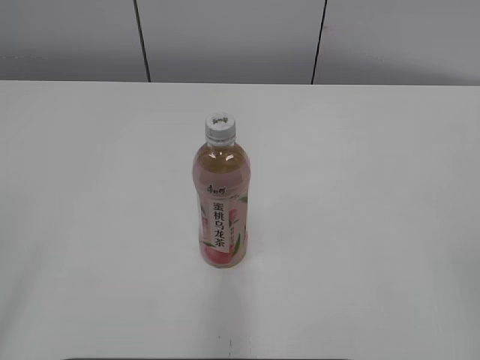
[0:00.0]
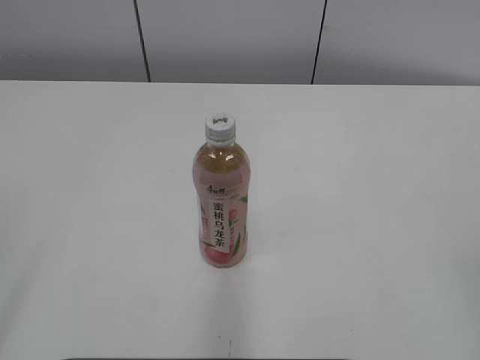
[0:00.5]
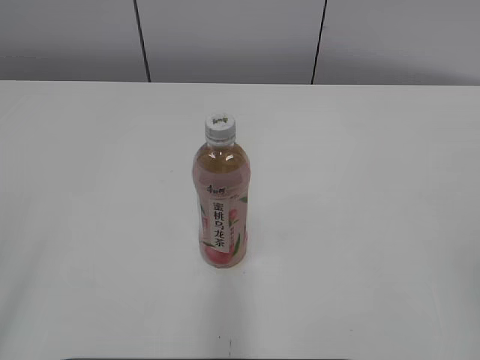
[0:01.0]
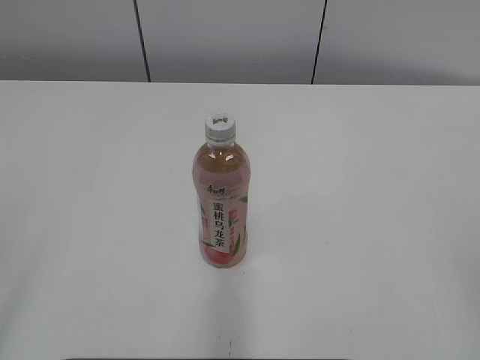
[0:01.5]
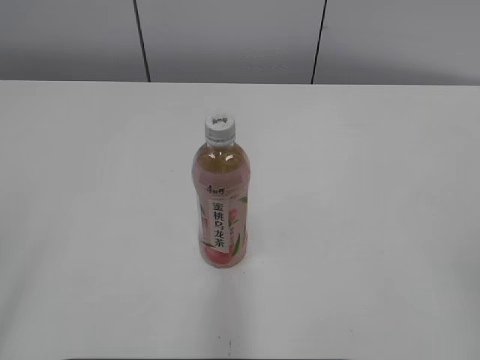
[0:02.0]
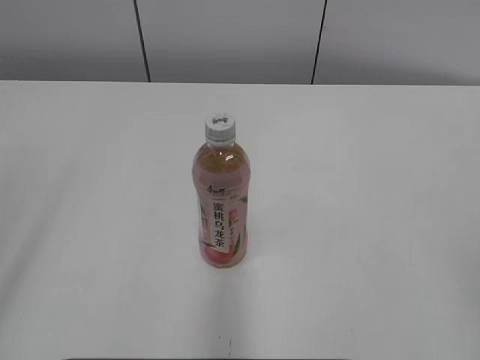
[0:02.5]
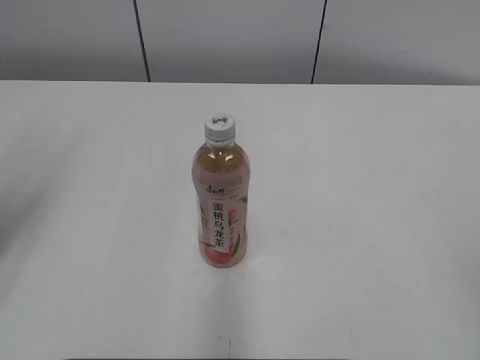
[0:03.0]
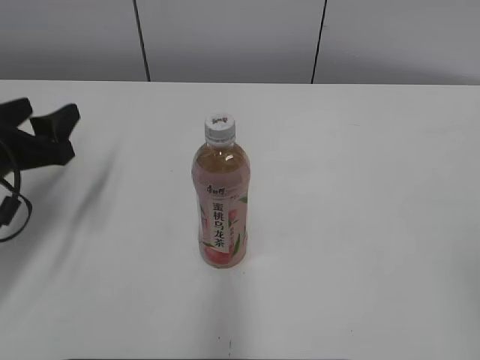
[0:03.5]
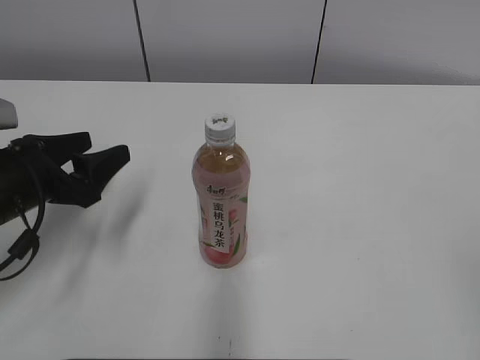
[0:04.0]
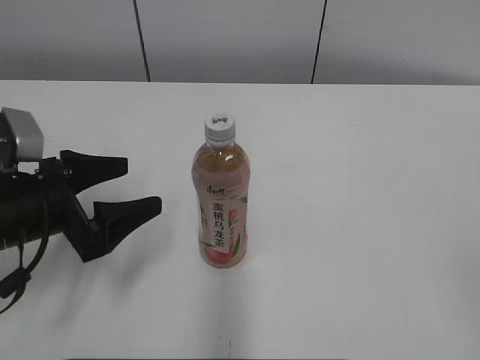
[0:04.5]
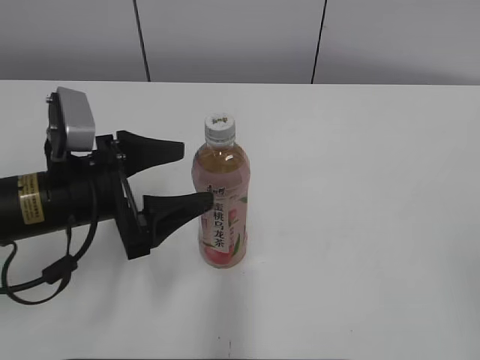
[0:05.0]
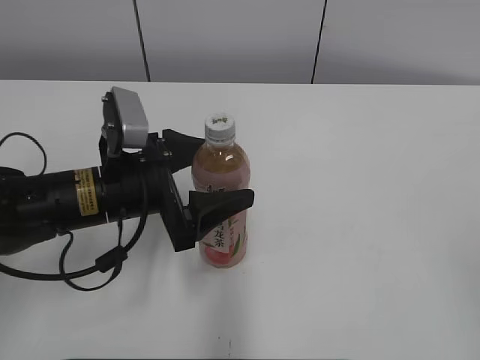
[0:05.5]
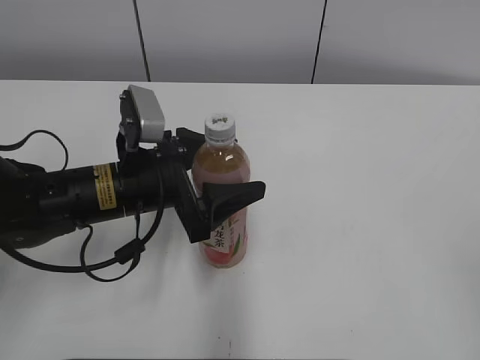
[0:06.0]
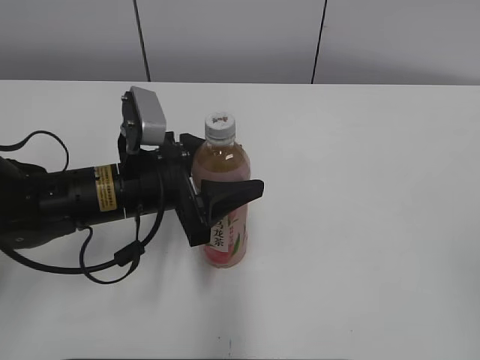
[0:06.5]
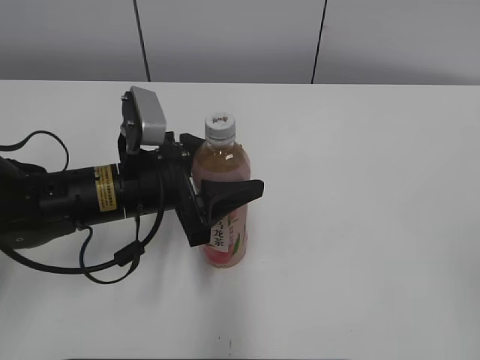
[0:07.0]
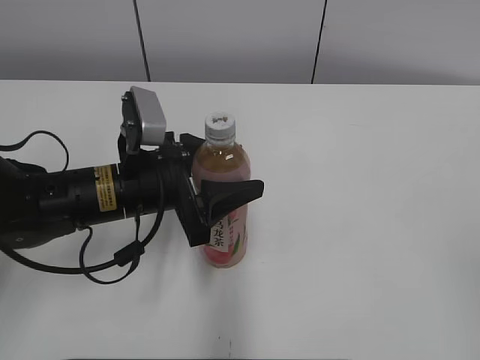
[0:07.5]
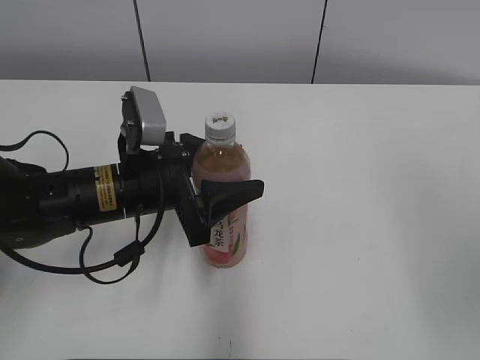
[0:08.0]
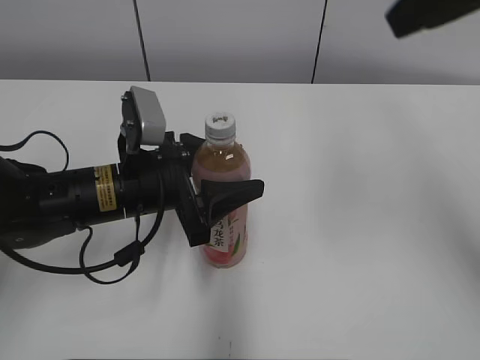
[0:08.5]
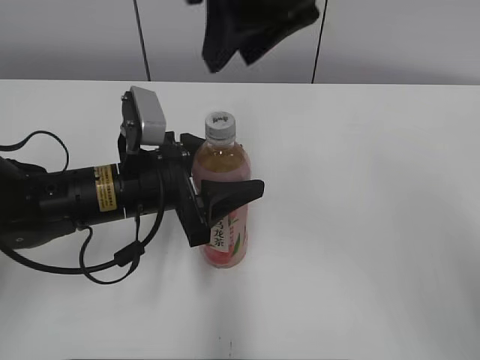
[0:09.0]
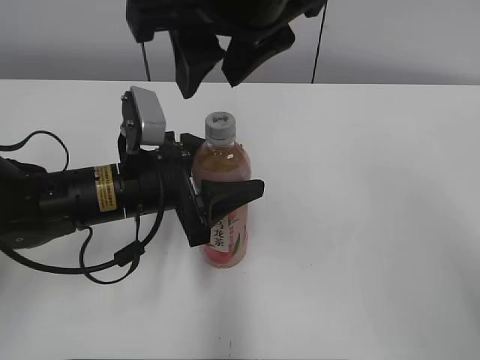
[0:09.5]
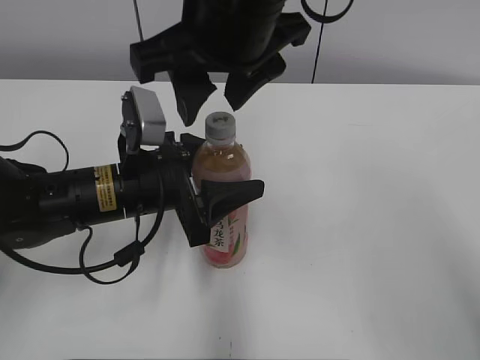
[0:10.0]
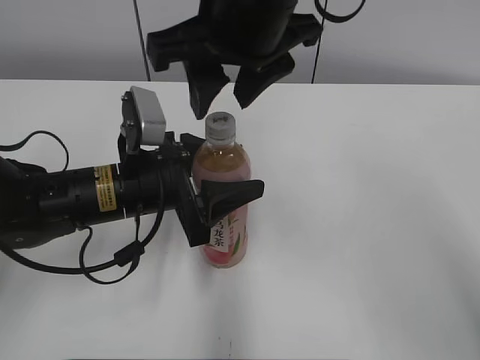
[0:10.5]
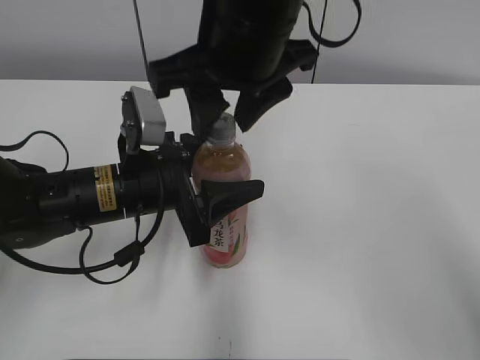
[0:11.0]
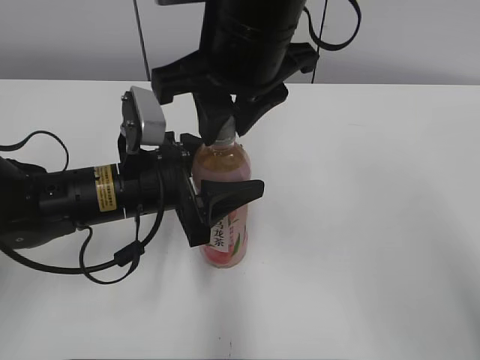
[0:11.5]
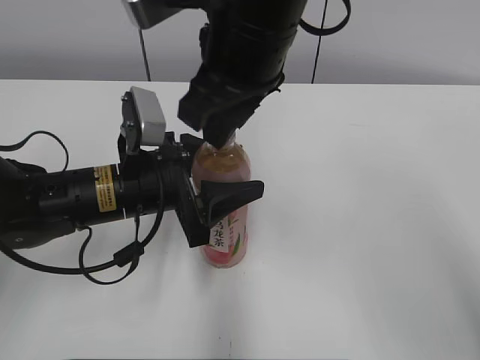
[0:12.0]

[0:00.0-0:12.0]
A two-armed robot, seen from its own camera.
Step, 0:00.0 to 0:06.0: Grasp the bottle and move it to the center of the table with the left gripper.
0:02.0 to 0:04.0: The left gripper moves forward and downward, roughly 30 cm.
0:04.0 to 0:06.0: The left gripper goes about 15 cm to the right, and opens up.
0:06.0 to 0:08.0: The left gripper closes up, while the right gripper heads forward and upward, covering some 10 cm.
0:08.0 to 0:10.0: The right gripper shifts some 35 cm to the left and forward.
0:10.0 to 0:12.0: The right gripper closes up.

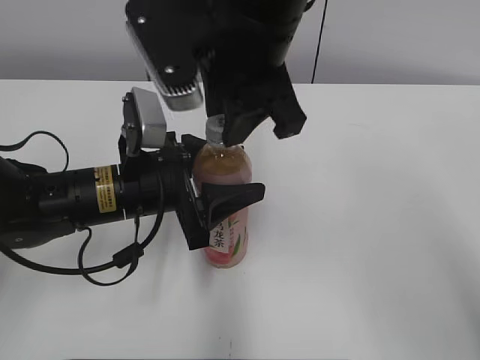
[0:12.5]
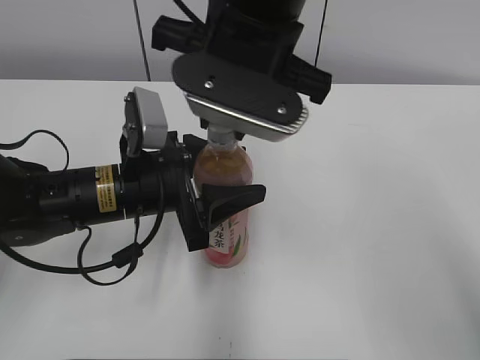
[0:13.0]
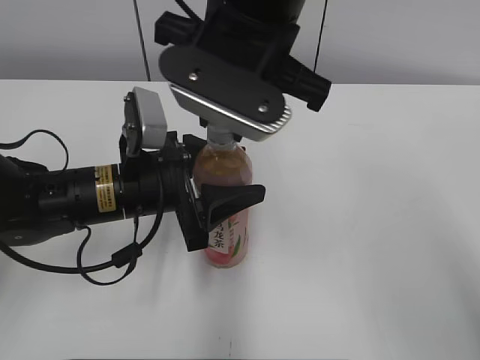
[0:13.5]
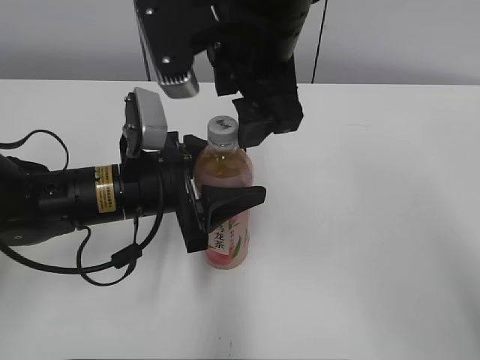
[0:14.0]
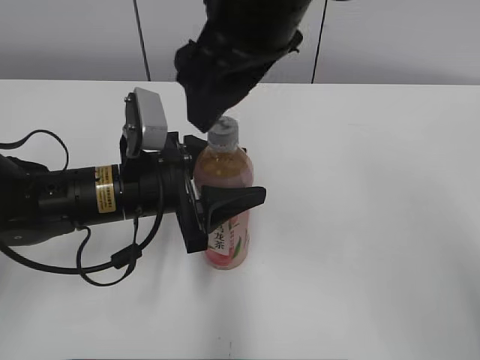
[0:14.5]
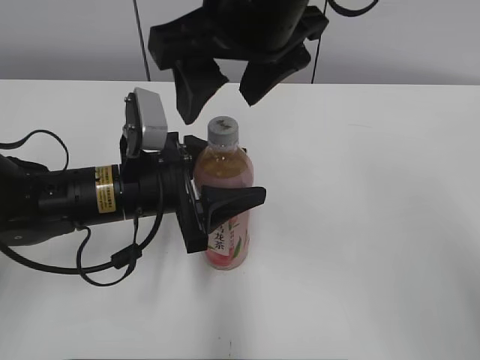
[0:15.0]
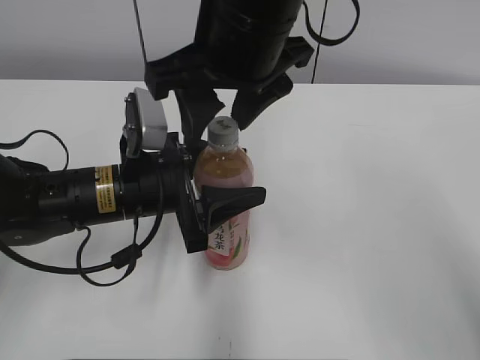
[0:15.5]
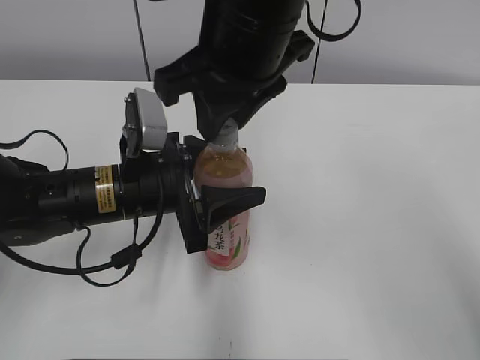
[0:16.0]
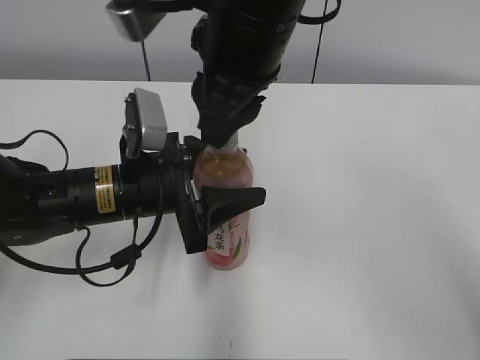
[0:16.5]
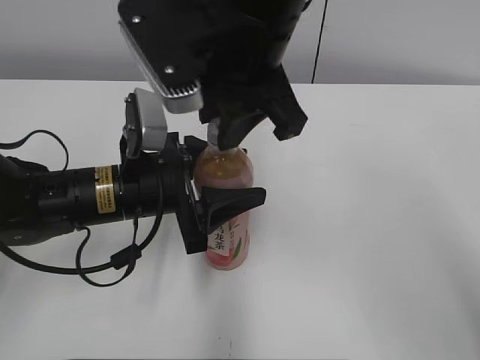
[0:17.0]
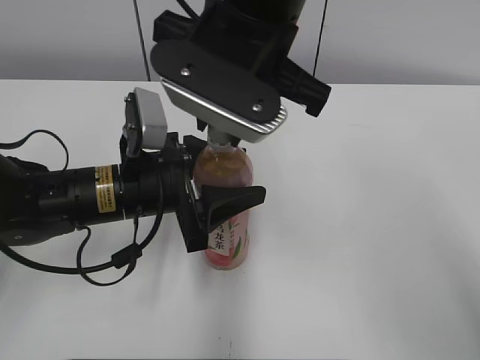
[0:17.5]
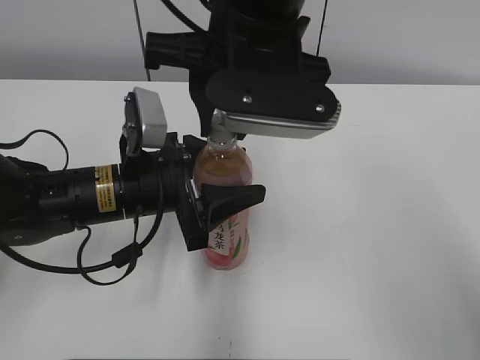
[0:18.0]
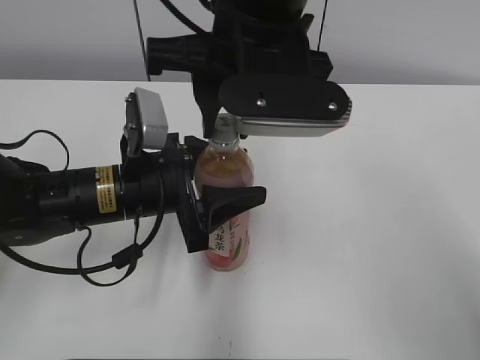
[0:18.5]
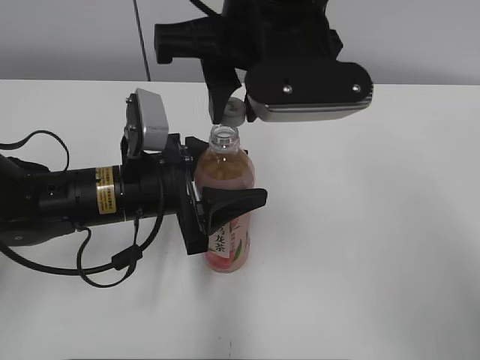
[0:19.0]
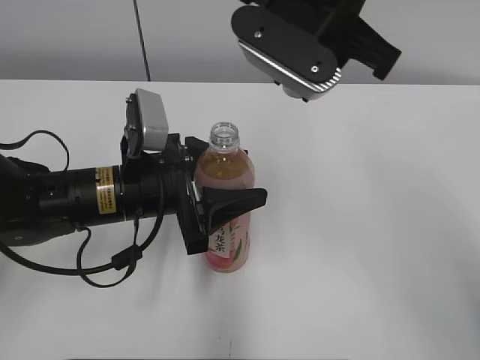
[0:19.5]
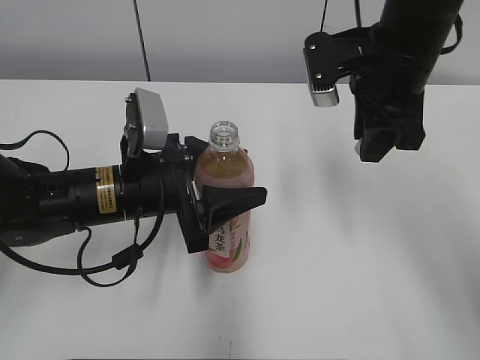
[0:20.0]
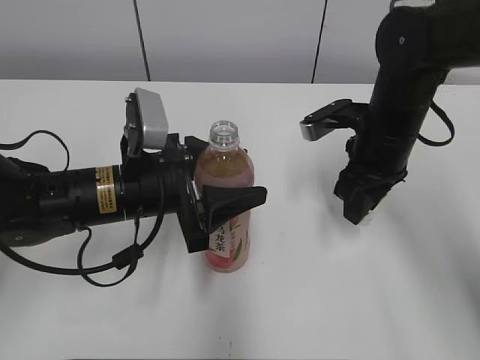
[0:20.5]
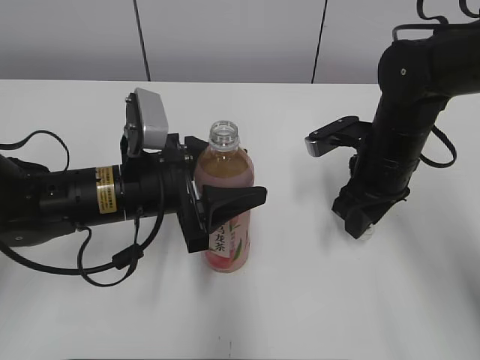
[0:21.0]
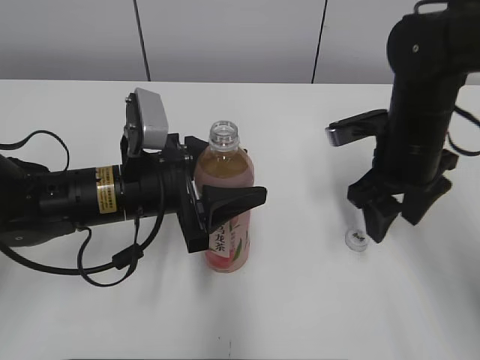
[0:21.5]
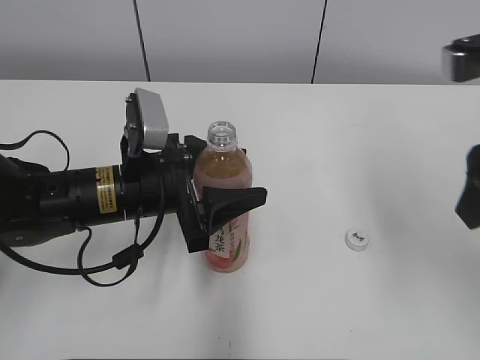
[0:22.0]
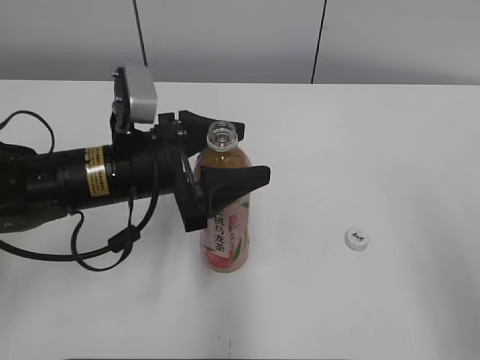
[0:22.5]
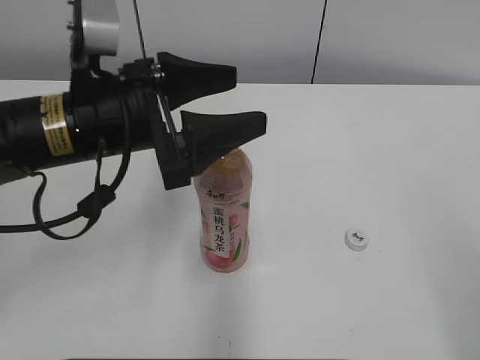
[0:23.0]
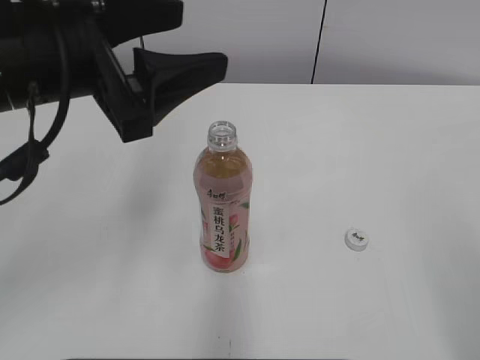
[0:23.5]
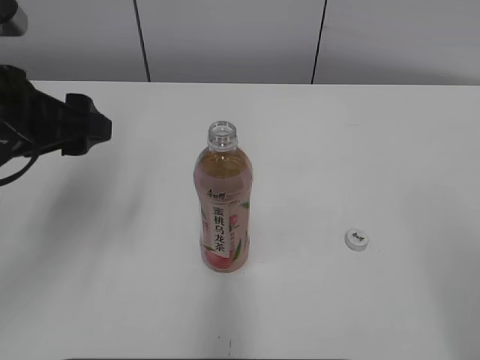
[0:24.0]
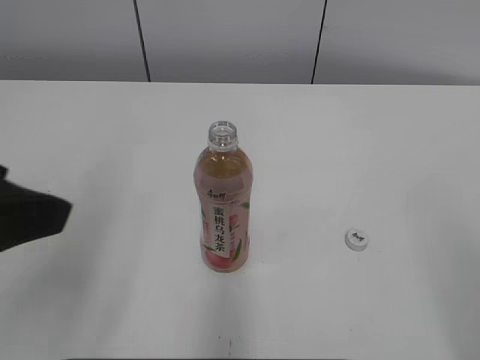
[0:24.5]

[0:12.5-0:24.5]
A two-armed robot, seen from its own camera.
Step, 0:12.5 to 0:18.5: Unscrew the bottle cap with the right gripper while holding the bottle with the left gripper.
Step, 0:19.0 to 0:21.0: Place the bottle cap on the table with the right gripper.
0:12.5 to 0:14.5: The right gripper opens its fingers.
0:14.5 to 0:16.5: The right gripper closes up.
0:18.5 to 0:20.5: The right gripper moves to the right, downward and forward, roughly 20 cm.
0:20.5 to 0:22.5: The right gripper is displaced backward and upward by roughly 30 cm, and opens up, while the left gripper opens its fingers.
0:22.5 to 0:24.5: The right gripper moves backward, about 5 cm, while the left gripper shifts approximately 20 cm upward, backward and to the left.

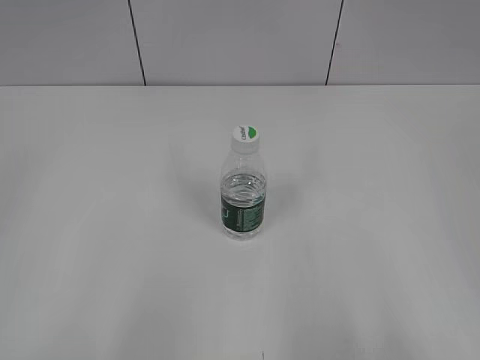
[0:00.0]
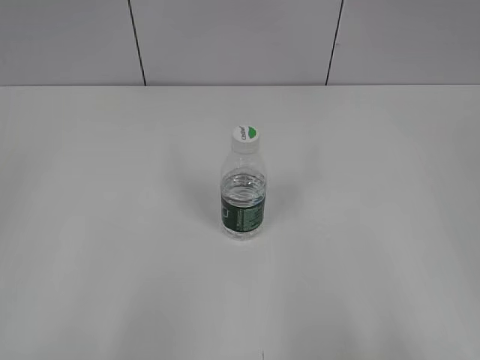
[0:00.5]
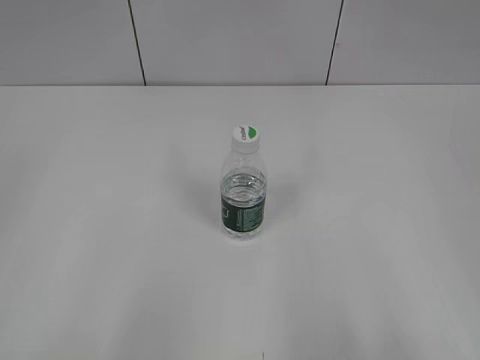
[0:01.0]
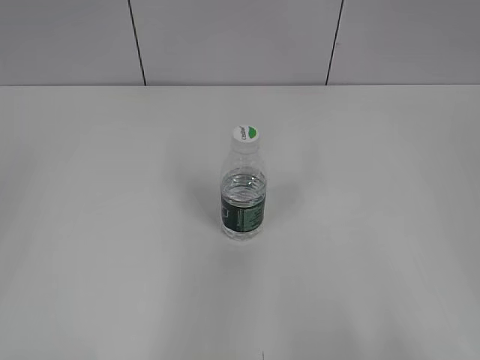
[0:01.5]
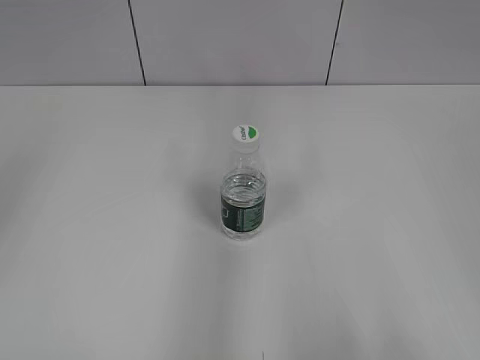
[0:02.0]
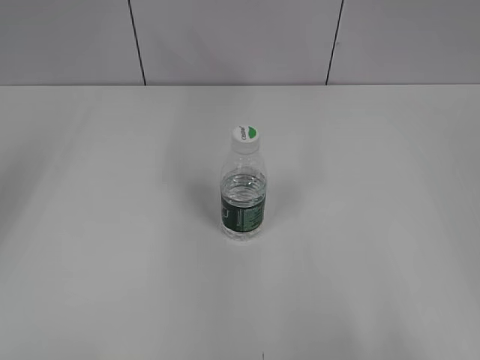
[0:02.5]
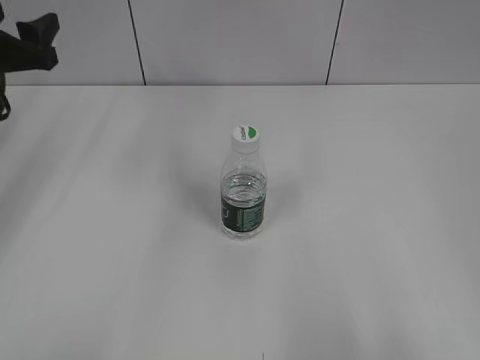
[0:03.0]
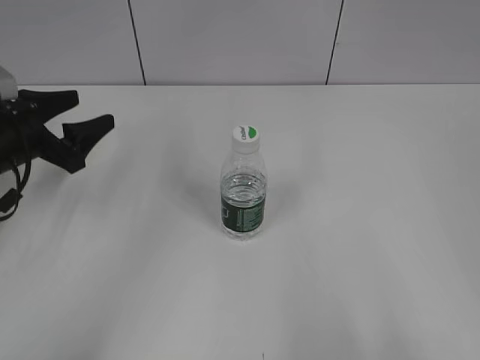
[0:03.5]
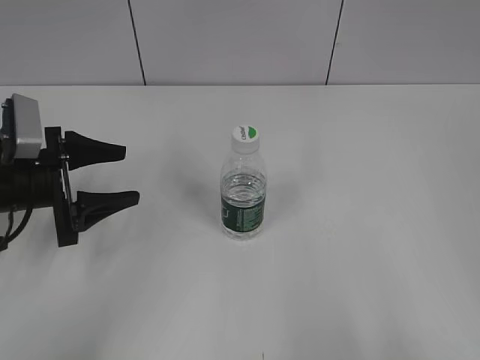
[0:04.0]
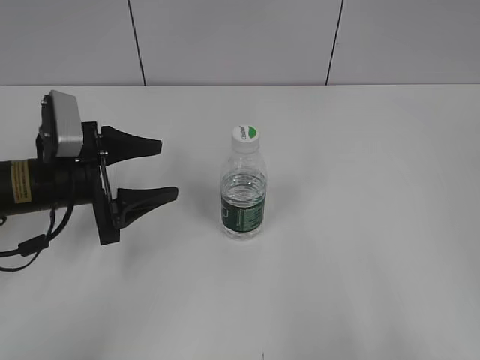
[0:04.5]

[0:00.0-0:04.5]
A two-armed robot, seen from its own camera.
0:02.0 to 0:04.5: The left gripper is displaced downward and forward by approximately 35 cm.
